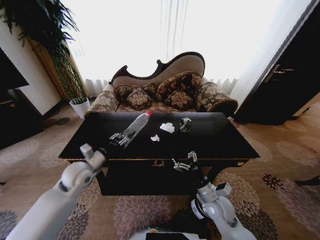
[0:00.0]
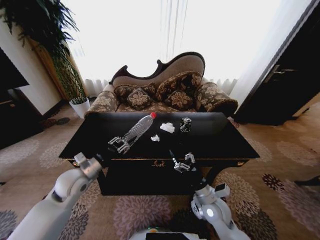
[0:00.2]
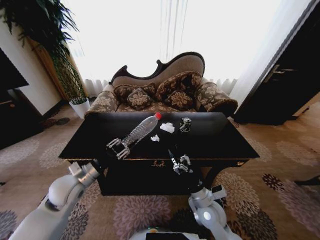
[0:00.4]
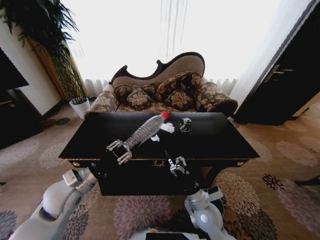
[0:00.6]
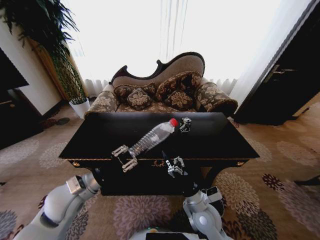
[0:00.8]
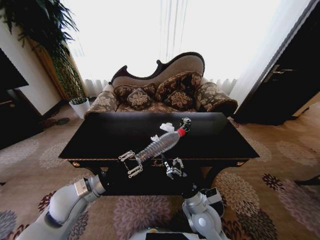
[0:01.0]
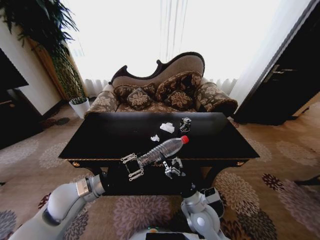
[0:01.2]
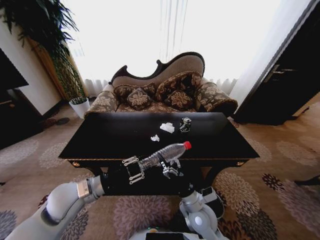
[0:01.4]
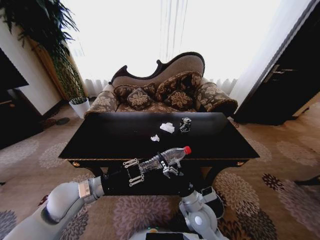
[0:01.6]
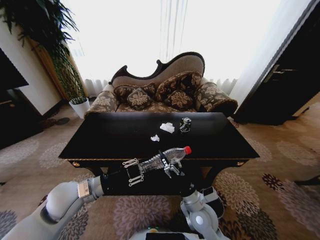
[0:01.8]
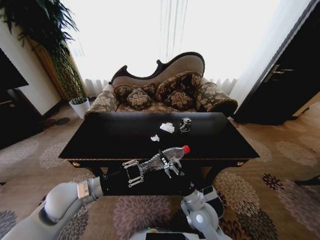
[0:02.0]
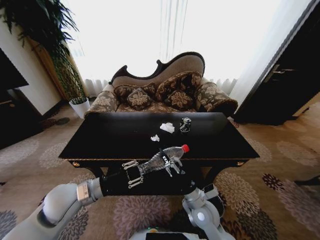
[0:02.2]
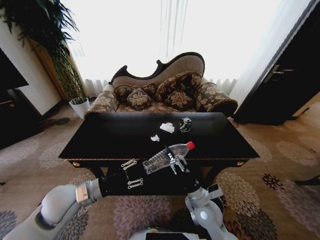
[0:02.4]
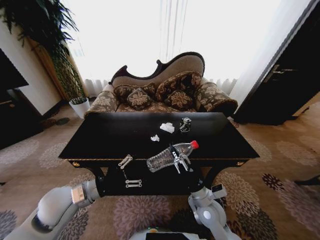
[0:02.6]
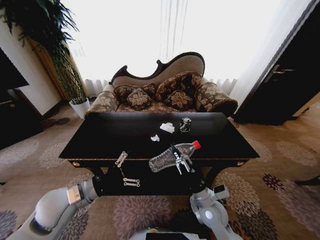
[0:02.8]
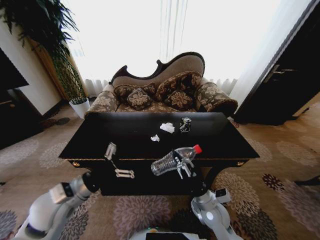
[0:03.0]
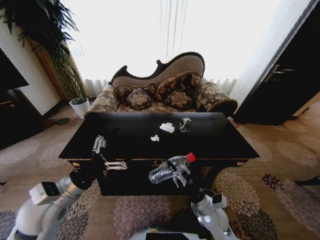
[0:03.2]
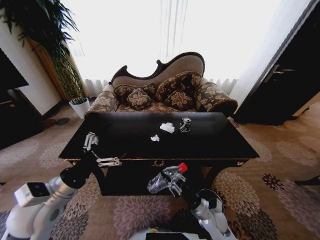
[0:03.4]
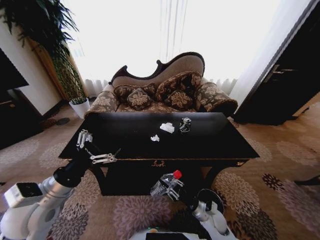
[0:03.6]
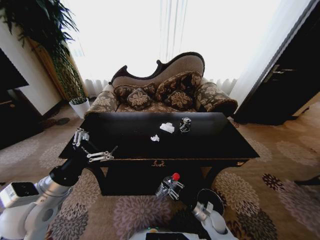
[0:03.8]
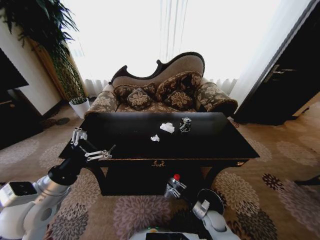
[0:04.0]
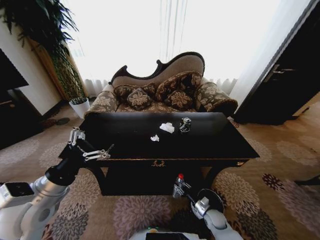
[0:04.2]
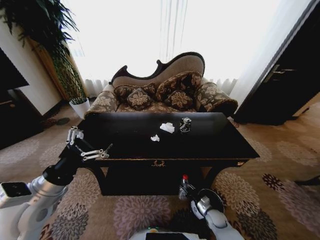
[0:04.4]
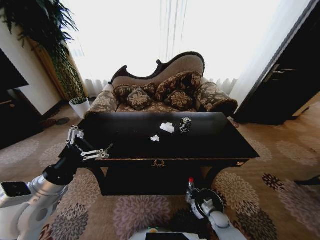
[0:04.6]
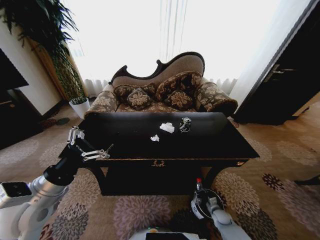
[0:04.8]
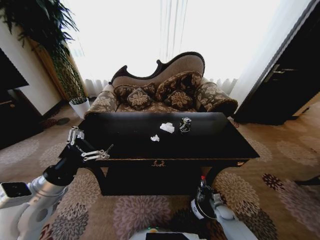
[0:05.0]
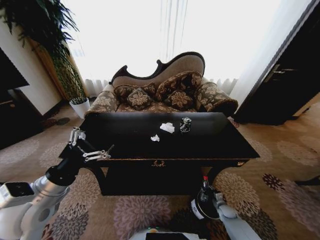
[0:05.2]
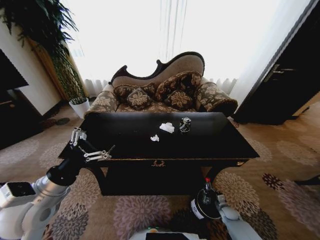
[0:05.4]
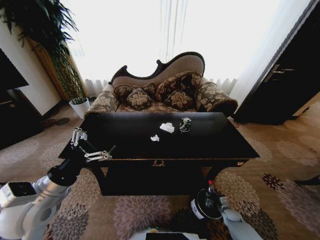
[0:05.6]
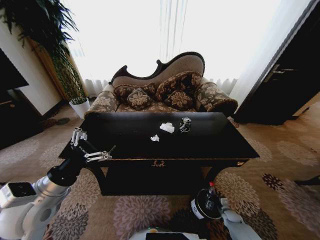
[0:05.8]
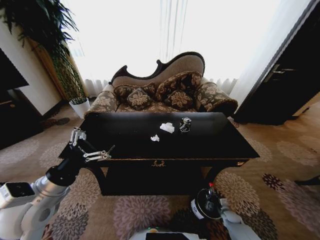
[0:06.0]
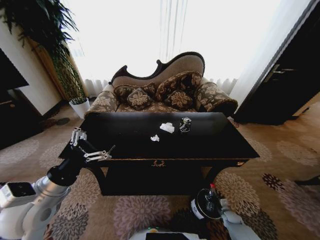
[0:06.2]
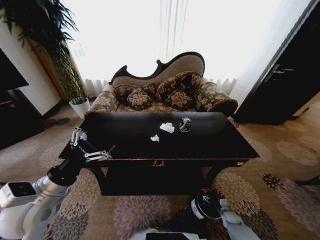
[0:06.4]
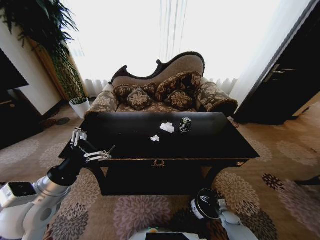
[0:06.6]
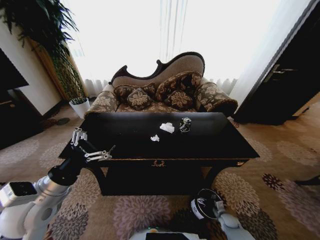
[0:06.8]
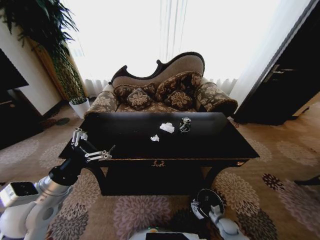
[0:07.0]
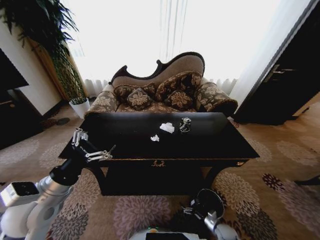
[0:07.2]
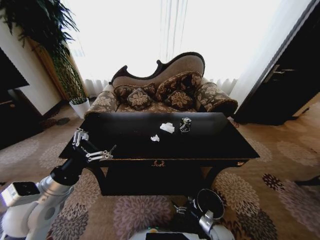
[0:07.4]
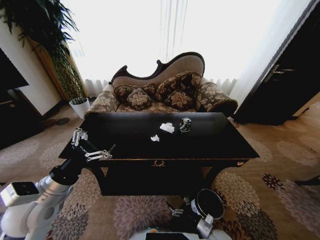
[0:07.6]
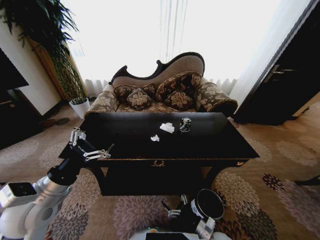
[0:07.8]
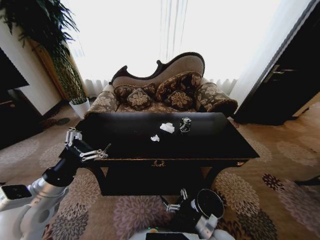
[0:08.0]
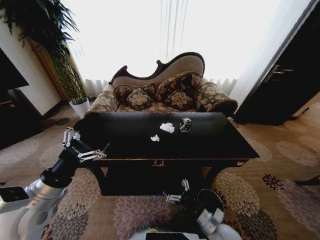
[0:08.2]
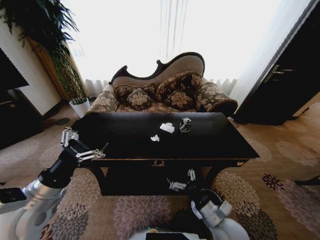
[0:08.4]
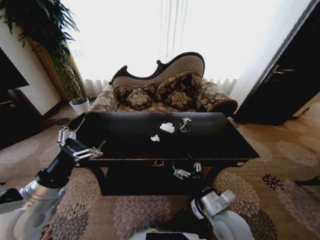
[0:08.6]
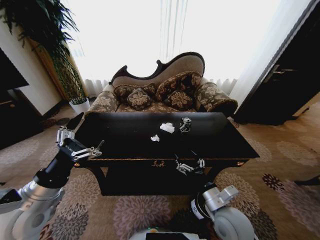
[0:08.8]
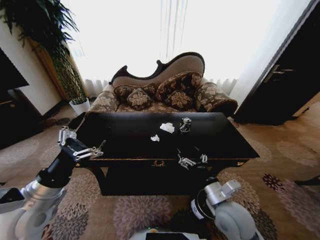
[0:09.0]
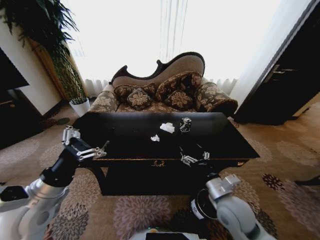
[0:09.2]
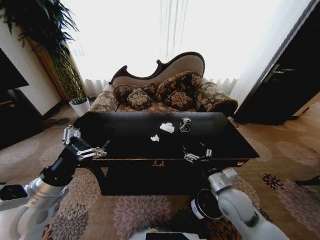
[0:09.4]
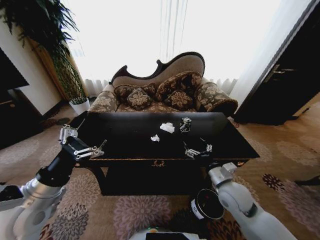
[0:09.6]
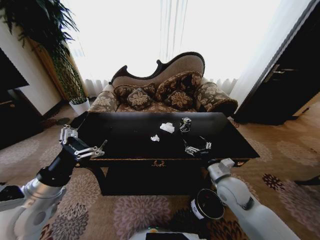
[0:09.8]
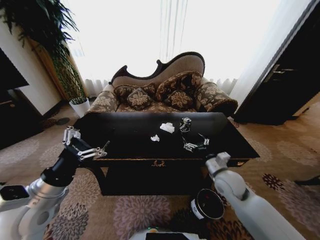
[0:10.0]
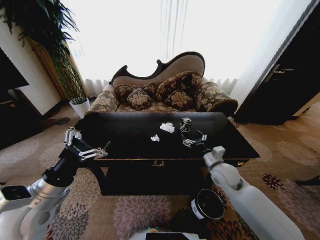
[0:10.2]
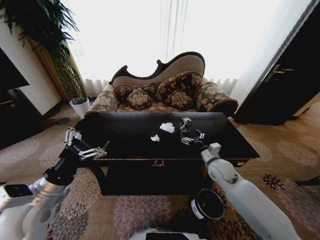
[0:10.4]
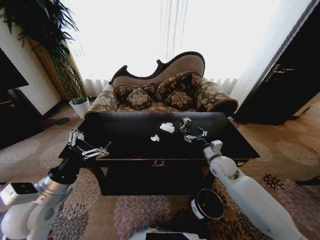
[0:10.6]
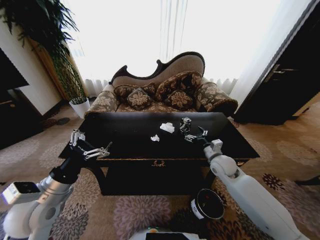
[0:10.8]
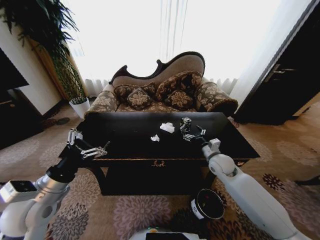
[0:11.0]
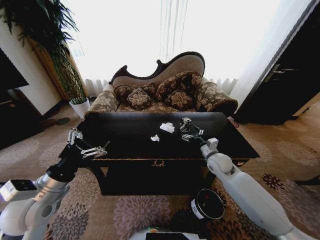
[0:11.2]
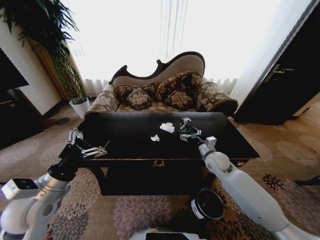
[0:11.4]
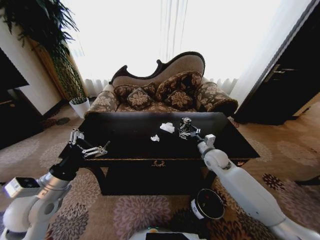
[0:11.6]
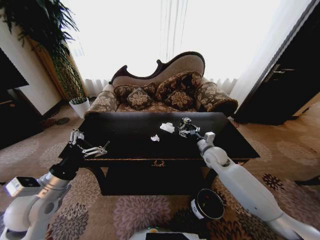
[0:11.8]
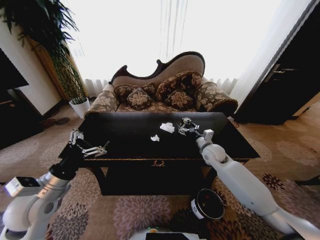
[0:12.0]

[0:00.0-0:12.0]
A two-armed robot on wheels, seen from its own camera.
Task of the whole recording: Move to the front of the table and place the trash on the table into the trash bin.
0:00.0 to 0:01.6: The left gripper is displaced backward by approximately 10 cm. The right gripper is displaced to the left by approximately 10 cm.
0:01.6 to 0:03.0: The left gripper opens its fingers; the right gripper shifts about 5 cm to the right, and closes its fingers.
0:03.0 to 0:04.4: The left gripper moves some 5 cm. Meanwhile the right gripper is displaced downward and to the right by about 25 cm.
0:04.4 to 0:06.0: The right gripper is displaced to the right and downward by some 15 cm.
0:06.0 to 0:07.6: The right gripper heads to the left, backward and upward, covering some 20 cm, and opens its fingers.
0:07.6 to 0:09.0: The right gripper shifts approximately 30 cm upward.
0:09.0 to 0:10.4: The right gripper travels forward by some 15 cm.
0:10.4 to 0:12.0: The right gripper goes roughly 10 cm forward.

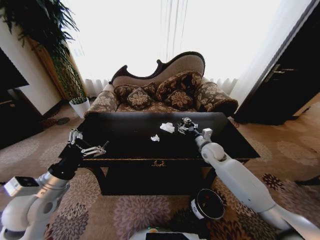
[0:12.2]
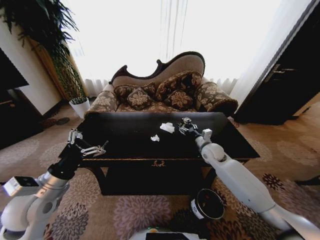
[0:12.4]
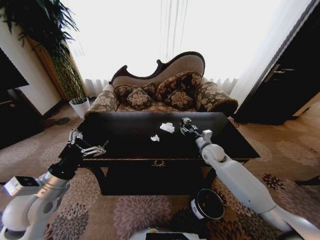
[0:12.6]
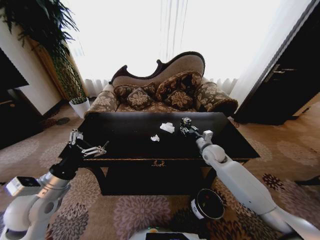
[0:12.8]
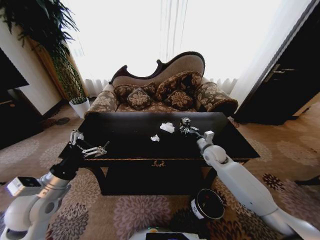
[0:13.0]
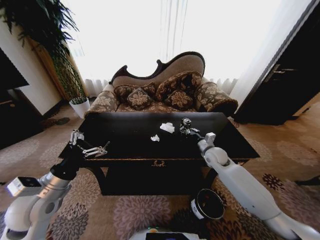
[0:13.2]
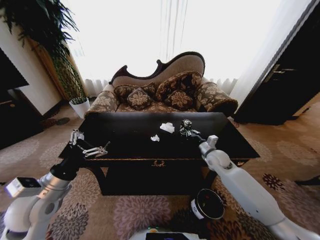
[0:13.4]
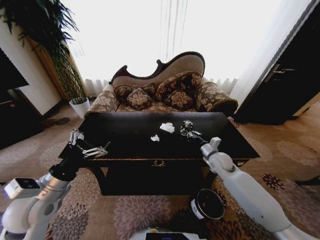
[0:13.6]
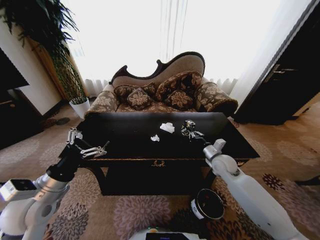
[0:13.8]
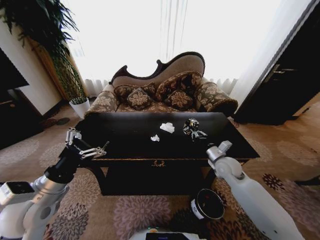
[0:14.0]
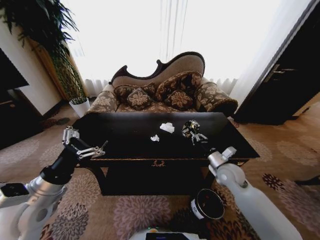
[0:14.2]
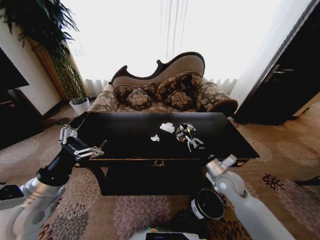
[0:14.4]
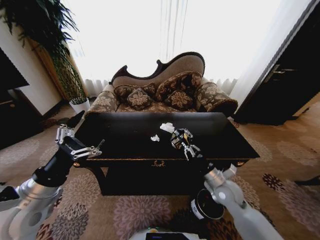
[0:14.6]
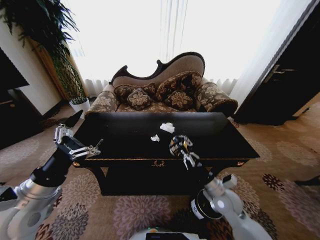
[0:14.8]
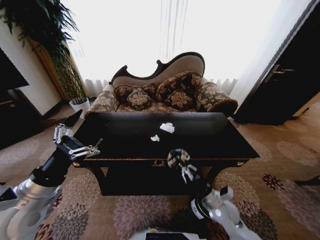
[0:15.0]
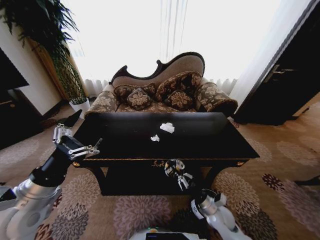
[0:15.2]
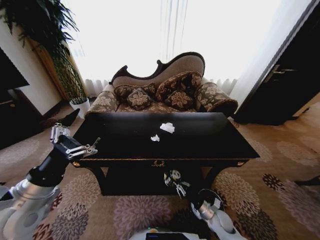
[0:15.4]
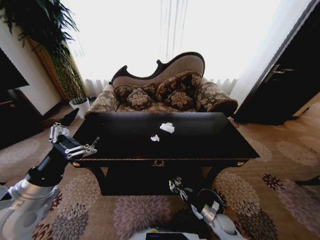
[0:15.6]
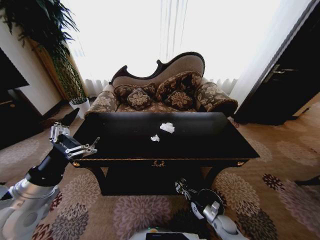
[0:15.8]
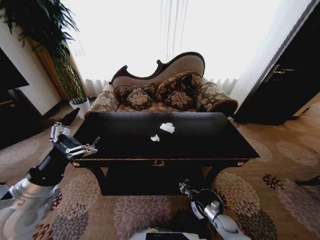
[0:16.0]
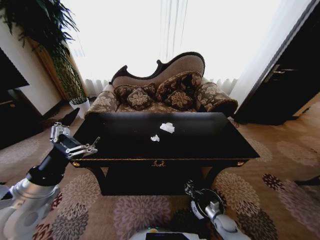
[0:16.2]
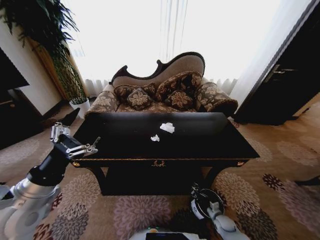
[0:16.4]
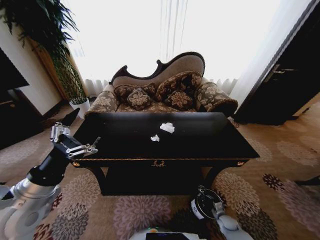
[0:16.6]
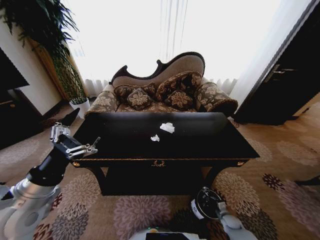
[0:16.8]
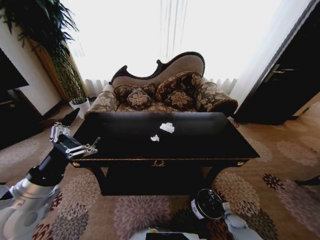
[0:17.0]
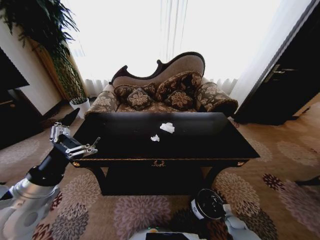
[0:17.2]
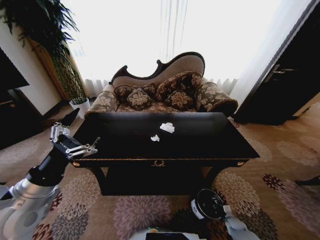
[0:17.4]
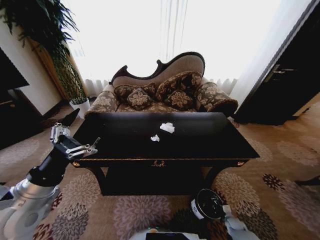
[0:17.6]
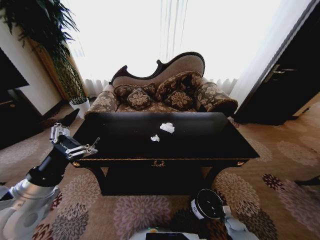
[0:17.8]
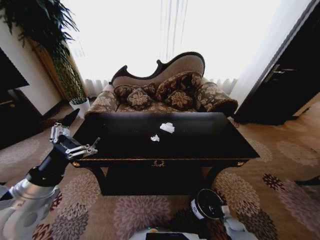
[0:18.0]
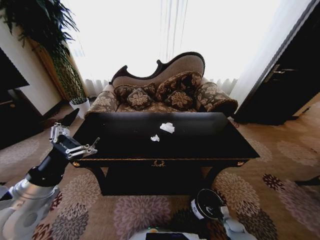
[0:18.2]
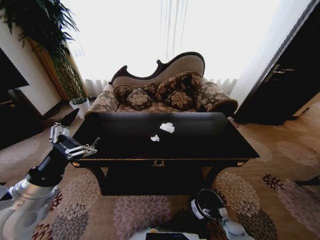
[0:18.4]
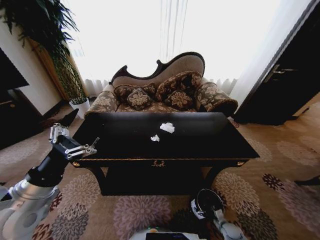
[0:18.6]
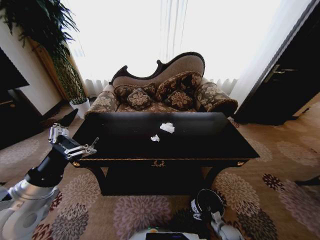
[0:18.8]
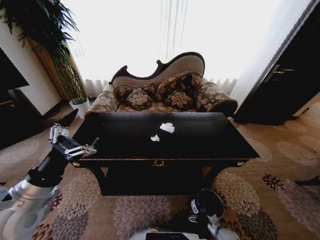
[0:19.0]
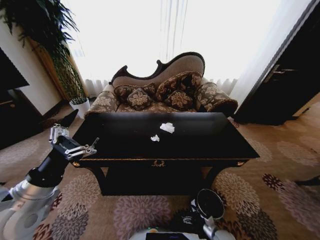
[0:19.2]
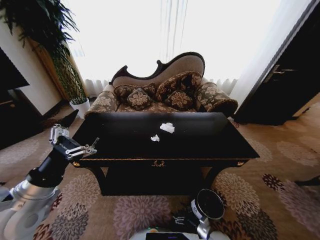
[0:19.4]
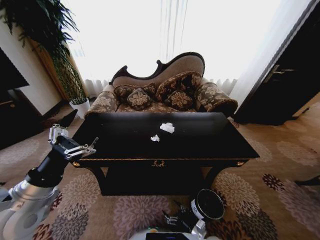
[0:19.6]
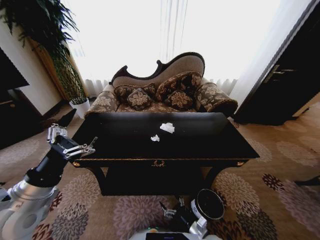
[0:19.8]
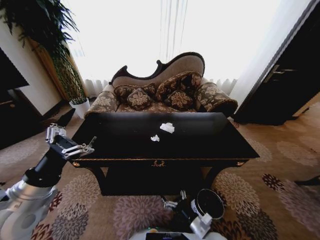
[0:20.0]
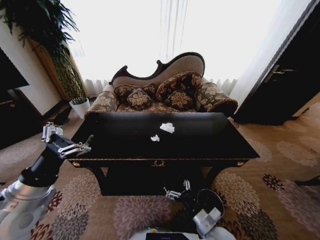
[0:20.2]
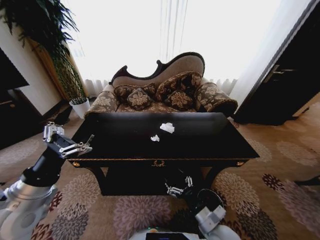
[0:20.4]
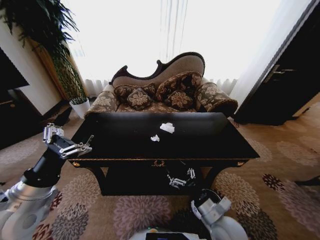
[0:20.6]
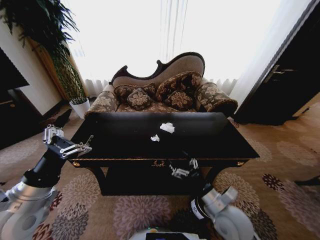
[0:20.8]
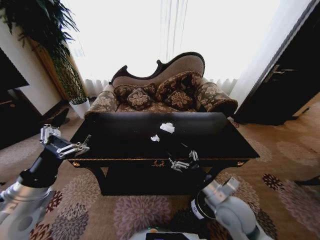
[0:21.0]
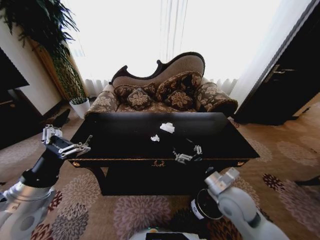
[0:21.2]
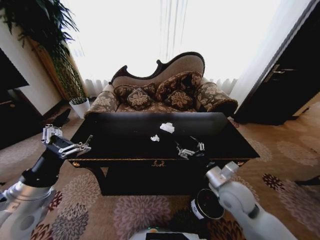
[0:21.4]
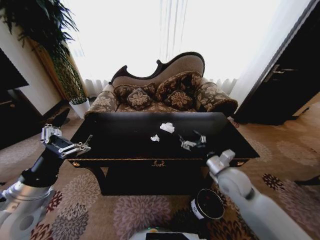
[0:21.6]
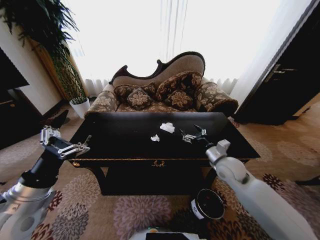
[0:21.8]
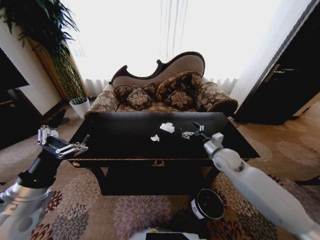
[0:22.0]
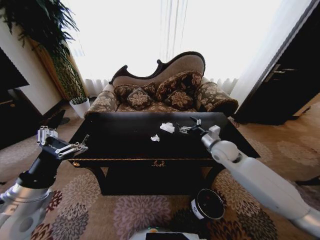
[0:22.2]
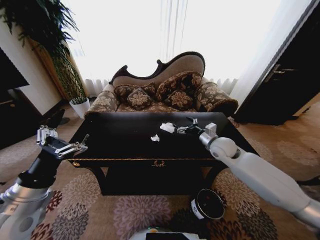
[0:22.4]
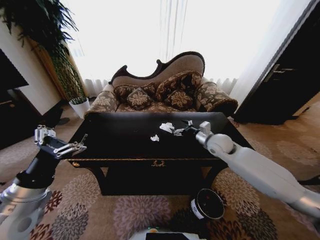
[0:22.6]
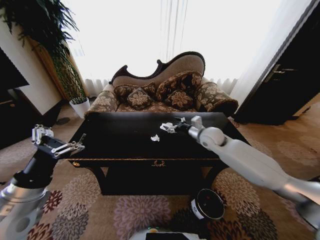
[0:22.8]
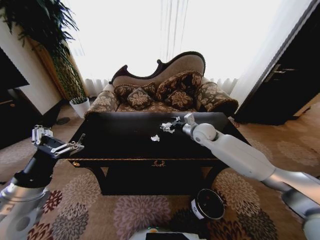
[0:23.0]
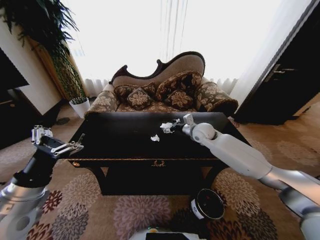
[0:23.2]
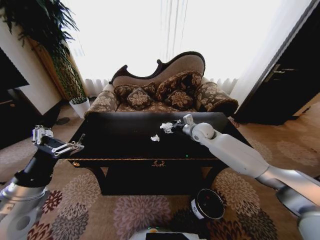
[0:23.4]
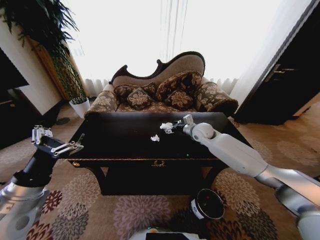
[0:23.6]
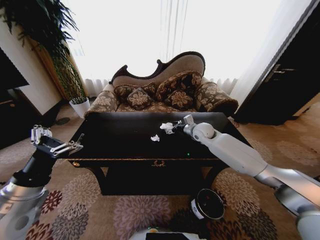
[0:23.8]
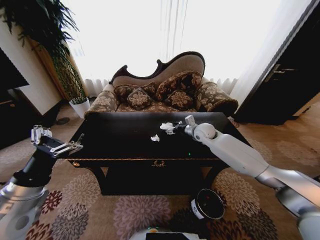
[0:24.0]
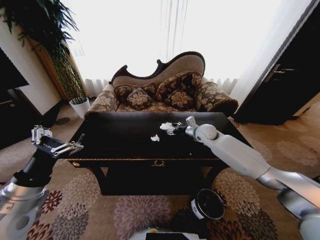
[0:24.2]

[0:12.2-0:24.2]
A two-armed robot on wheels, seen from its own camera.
Task of the whole recording: Move to the front of the table and place the trash on the table into the trash bin.
0:12.2 to 0:13.8: The right gripper is displaced backward by roughly 5 cm, and closes up.
0:13.8 to 0:15.2: The right gripper is displaced backward and downward by about 25 cm.
0:15.2 to 0:16.6: The right gripper goes roughly 25 cm downward and to the right.
0:16.6 to 0:18.2: The right gripper opens.
0:18.2 to 0:19.8: The right gripper shifts some 25 cm to the left and upward.
0:19.8 to 0:21.2: The right gripper moves upward and forward, about 25 cm.
0:21.2 to 0:22.6: The right gripper goes about 20 cm forward.
0:22.6 to 0:24.2: The right gripper travels forward by roughly 10 cm.
